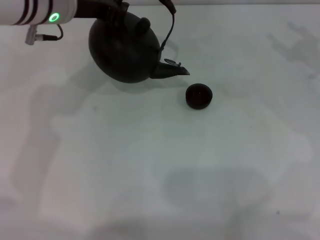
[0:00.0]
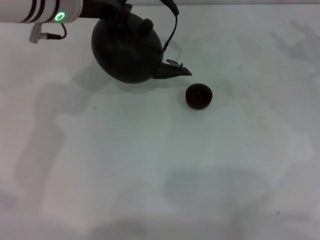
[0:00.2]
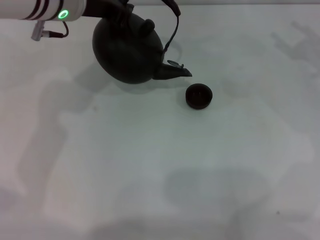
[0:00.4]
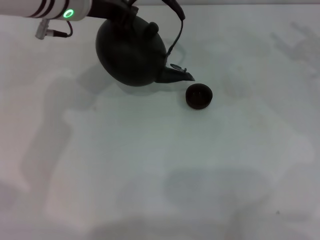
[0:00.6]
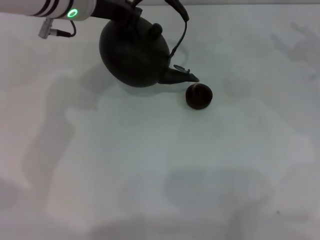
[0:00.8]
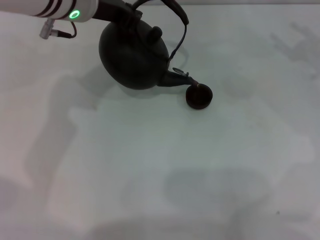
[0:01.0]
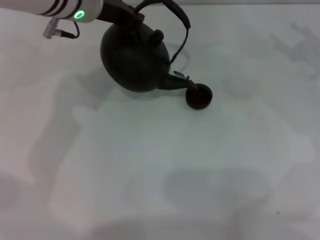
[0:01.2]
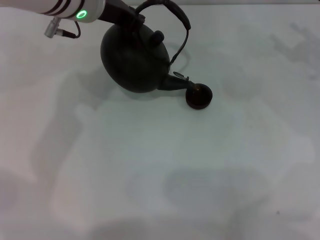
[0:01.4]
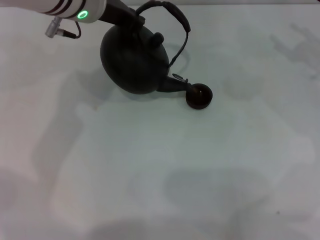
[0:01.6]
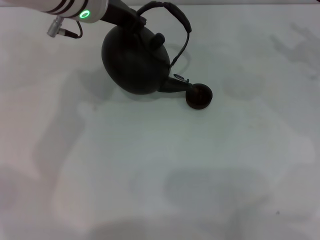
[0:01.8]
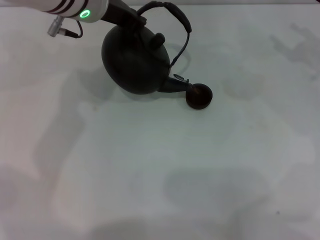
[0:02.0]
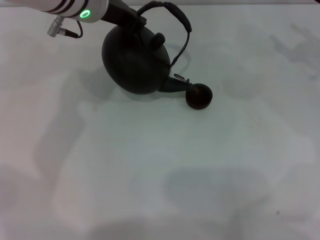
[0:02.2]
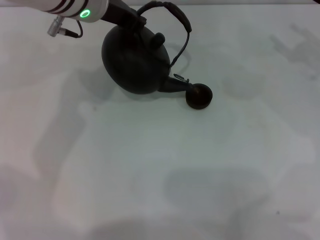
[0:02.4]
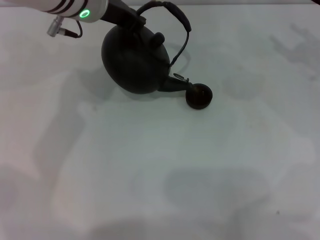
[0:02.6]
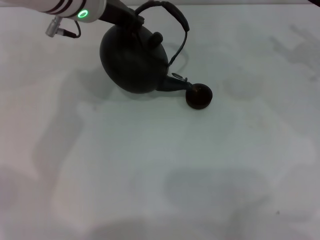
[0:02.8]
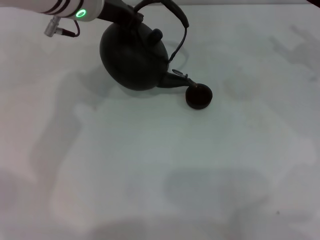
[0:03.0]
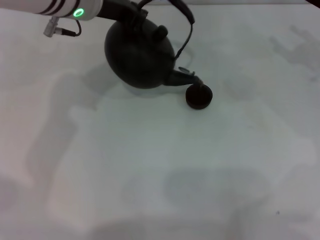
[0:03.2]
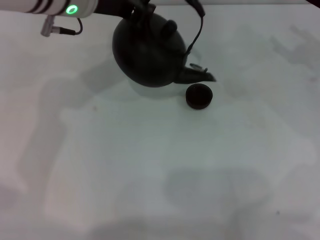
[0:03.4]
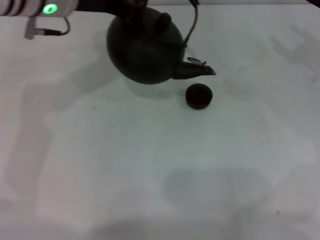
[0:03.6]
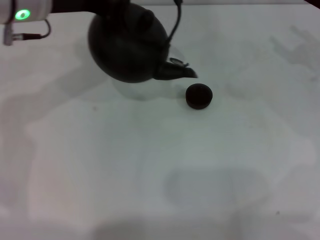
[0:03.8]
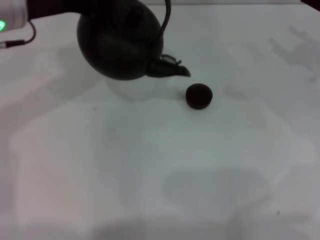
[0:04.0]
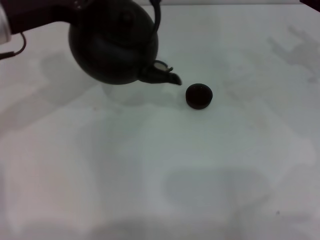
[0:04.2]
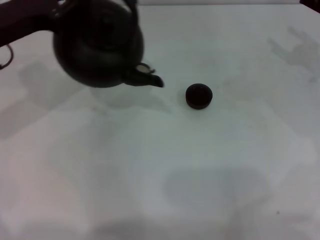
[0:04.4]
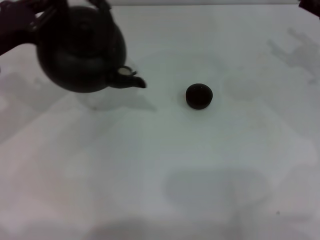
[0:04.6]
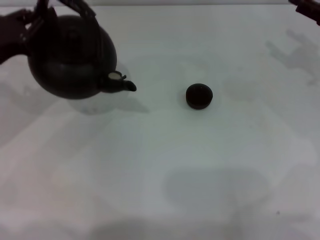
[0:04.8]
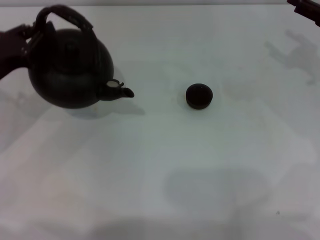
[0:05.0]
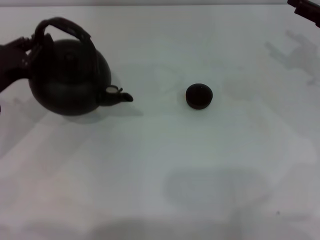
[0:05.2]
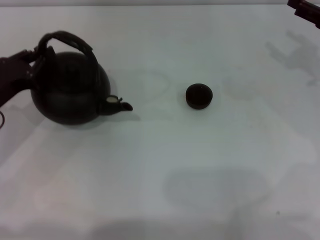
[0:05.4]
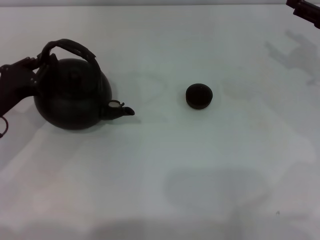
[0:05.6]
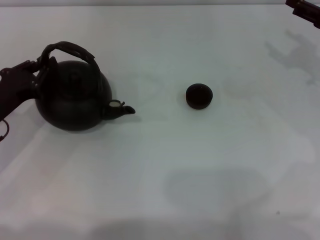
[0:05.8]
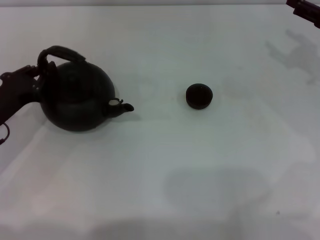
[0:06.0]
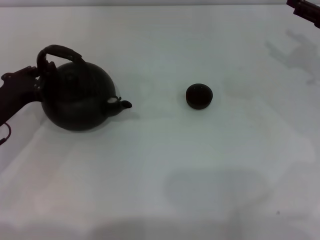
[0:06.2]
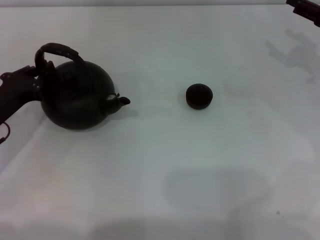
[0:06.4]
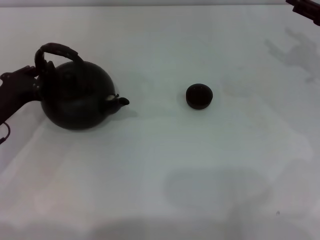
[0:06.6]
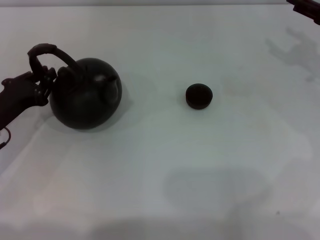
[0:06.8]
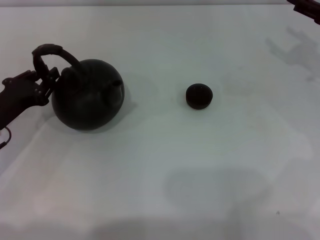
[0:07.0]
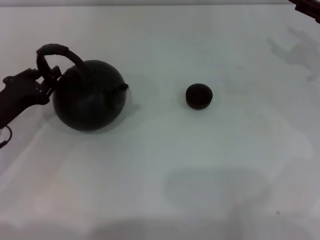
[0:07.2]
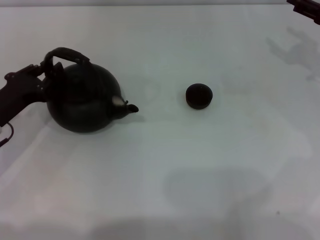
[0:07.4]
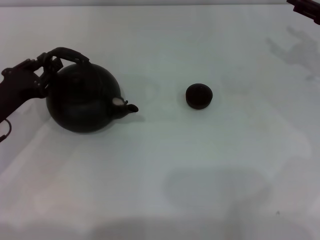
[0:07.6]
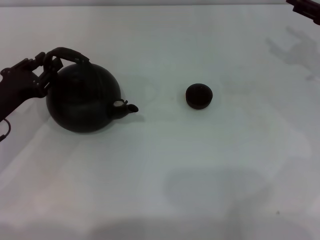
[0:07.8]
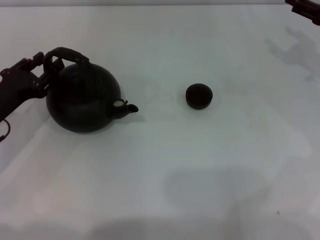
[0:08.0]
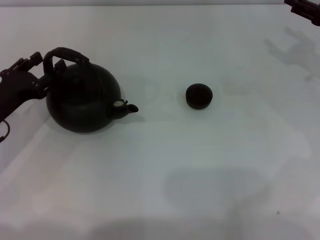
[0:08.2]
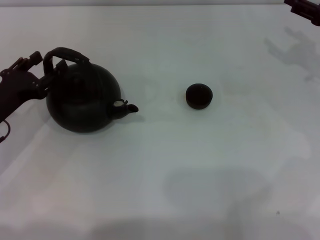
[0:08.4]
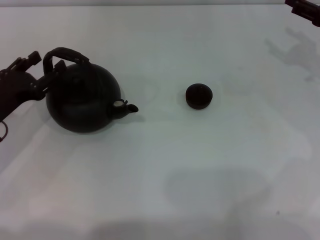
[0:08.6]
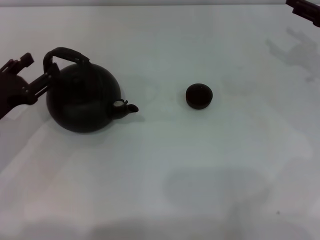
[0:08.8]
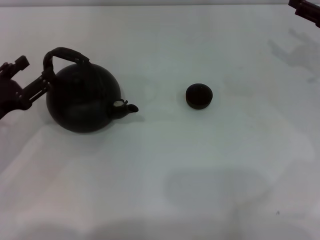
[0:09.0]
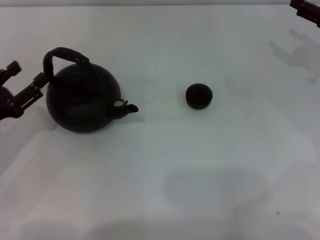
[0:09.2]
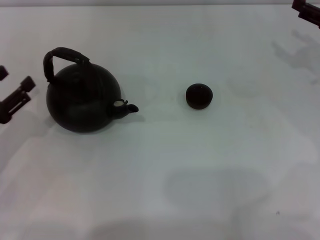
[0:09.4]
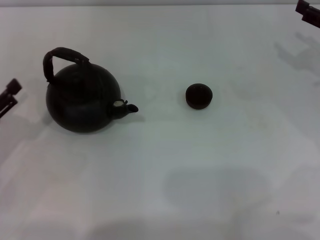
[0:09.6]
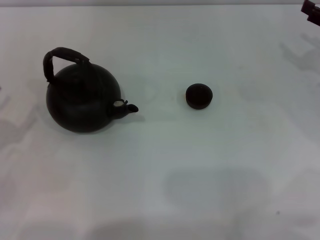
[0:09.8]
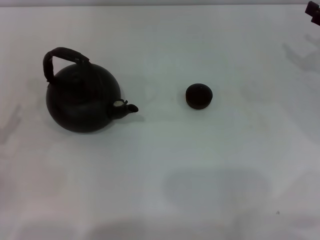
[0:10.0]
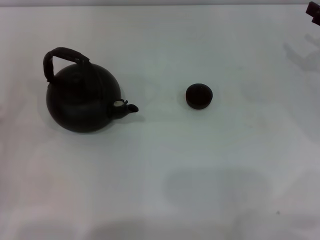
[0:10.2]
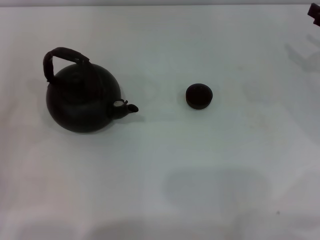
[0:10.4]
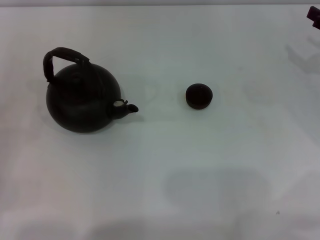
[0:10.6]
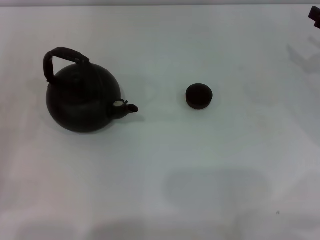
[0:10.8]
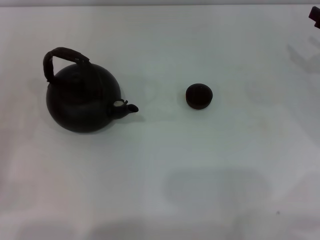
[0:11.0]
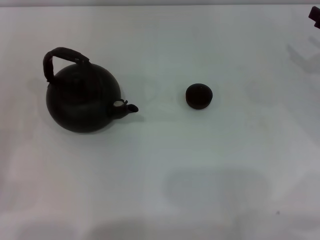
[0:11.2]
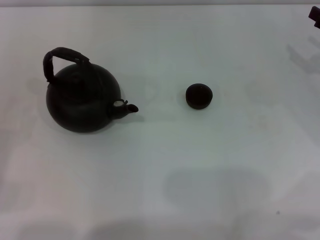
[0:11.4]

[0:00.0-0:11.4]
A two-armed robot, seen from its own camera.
Task of the whole recording: Grasp the handle of the teapot with one hand and pour tea into the teacup.
Step, 0:00.0 to 0:04.4: Pour tea into the teacup with the left gripper.
Step, 0:04.8 to 0:09.2: Put down the teapot with the left gripper.
0:00.0 to 0:01.4: The grippers move only a little.
0:01.4 to 0:02.8: Both grippers stay about where they are.
0:02.8 to 0:04.2: The left gripper moves to the left and backward, some 15 cm.
0:04.2 to 0:05.6: The left gripper heads downward, to the left and backward, covering about 15 cm.
0:05.6 to 0:07.2: There are only small adjustments of the grippers.
0:07.2 to 0:08.6: The left gripper opens up.
0:08.6 to 0:10.0: The left gripper goes approximately 10 cm backward and to the left.

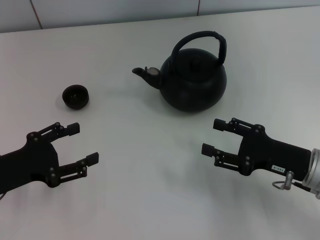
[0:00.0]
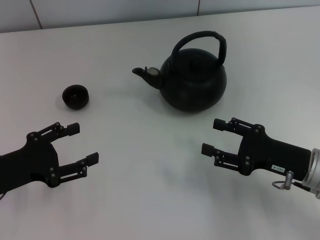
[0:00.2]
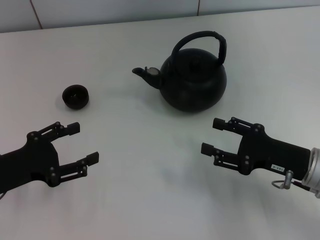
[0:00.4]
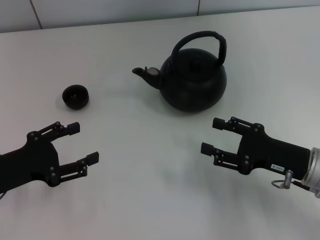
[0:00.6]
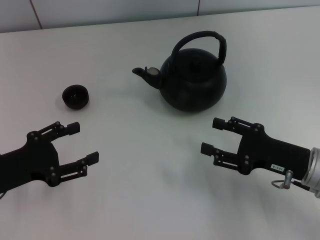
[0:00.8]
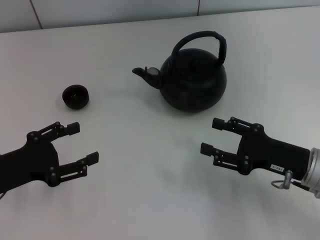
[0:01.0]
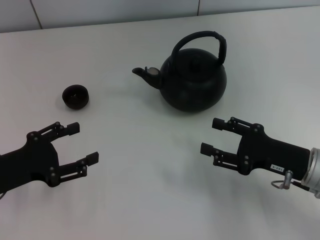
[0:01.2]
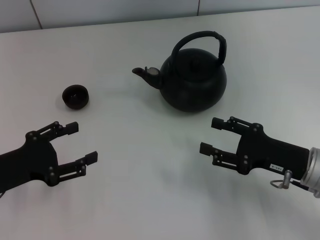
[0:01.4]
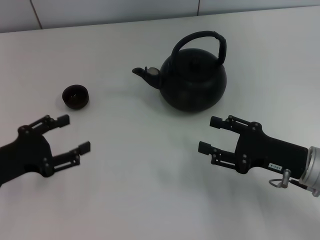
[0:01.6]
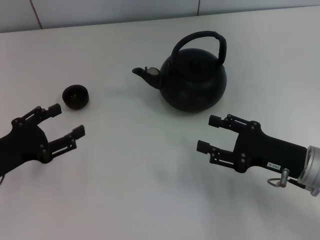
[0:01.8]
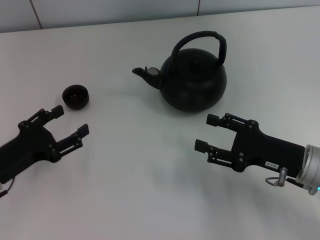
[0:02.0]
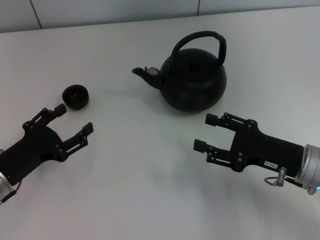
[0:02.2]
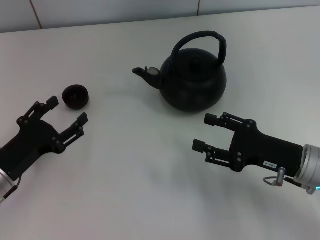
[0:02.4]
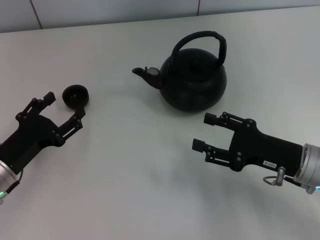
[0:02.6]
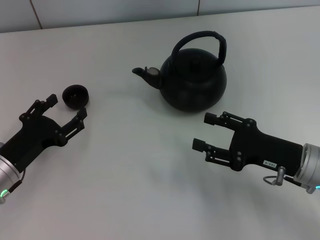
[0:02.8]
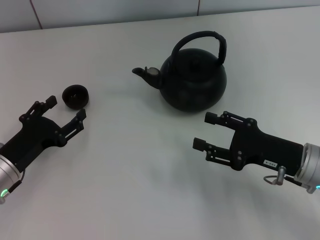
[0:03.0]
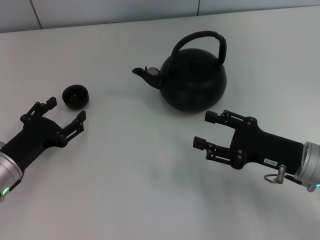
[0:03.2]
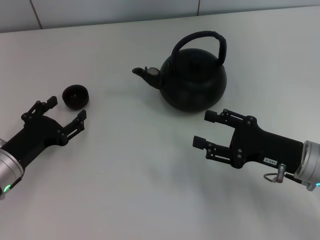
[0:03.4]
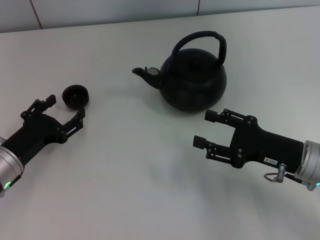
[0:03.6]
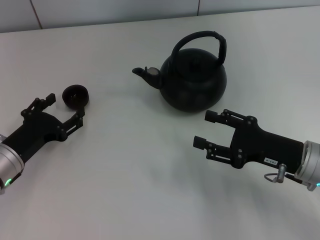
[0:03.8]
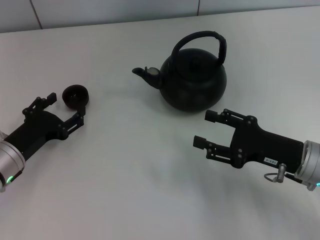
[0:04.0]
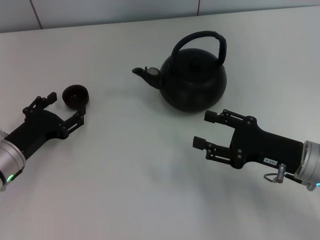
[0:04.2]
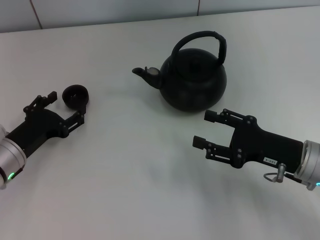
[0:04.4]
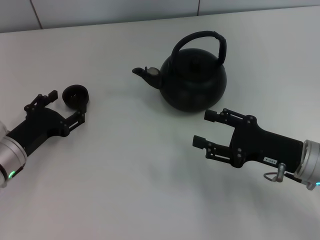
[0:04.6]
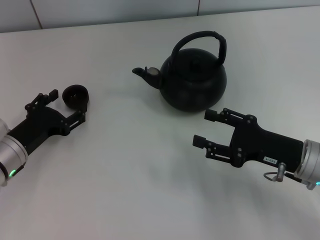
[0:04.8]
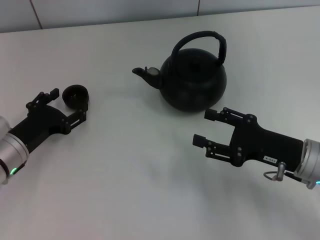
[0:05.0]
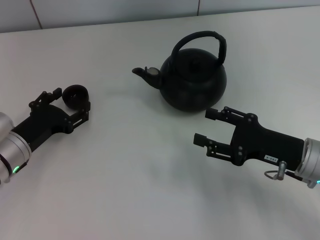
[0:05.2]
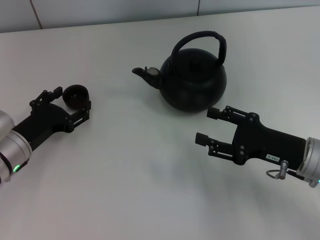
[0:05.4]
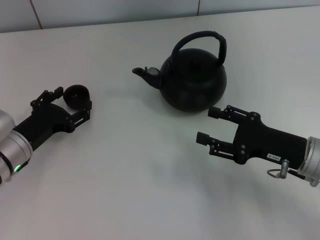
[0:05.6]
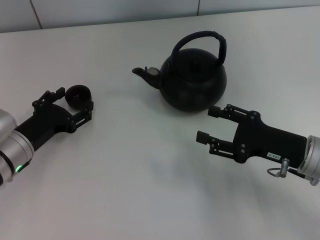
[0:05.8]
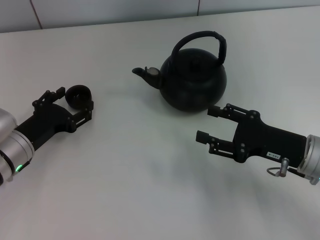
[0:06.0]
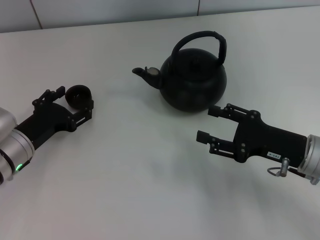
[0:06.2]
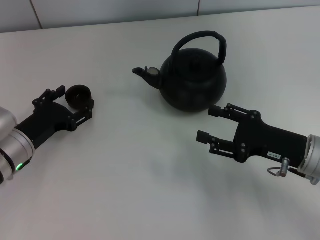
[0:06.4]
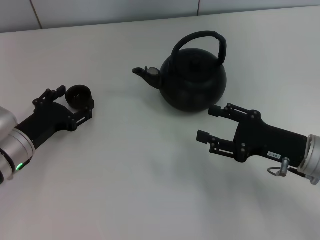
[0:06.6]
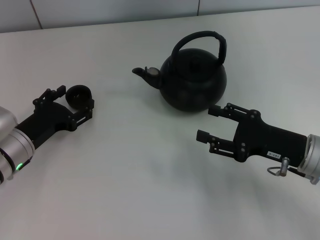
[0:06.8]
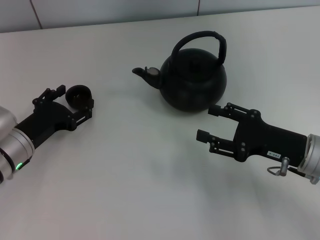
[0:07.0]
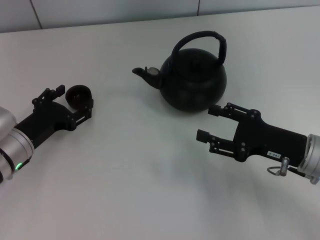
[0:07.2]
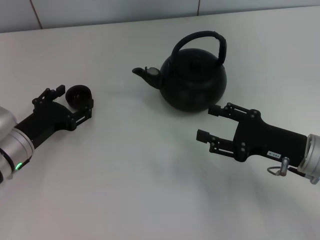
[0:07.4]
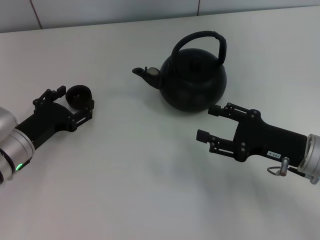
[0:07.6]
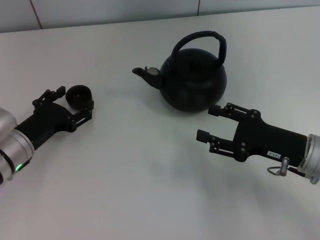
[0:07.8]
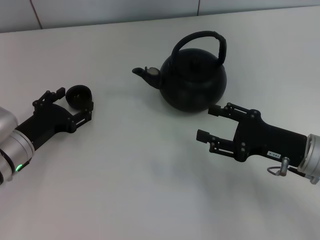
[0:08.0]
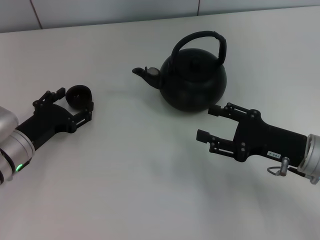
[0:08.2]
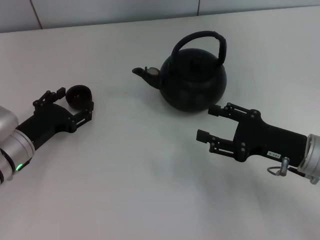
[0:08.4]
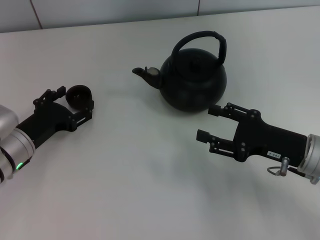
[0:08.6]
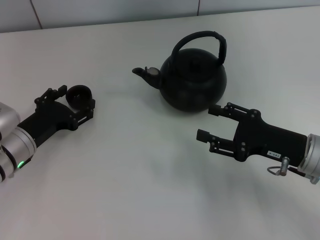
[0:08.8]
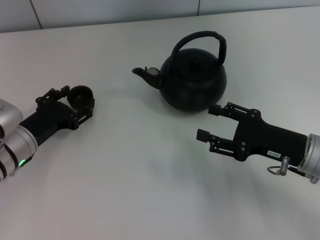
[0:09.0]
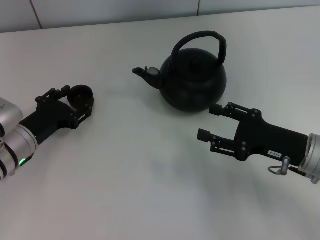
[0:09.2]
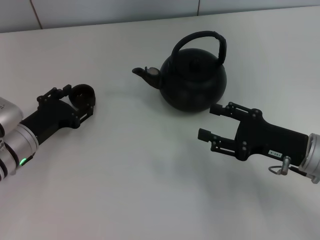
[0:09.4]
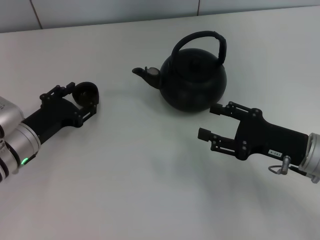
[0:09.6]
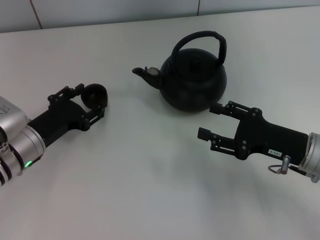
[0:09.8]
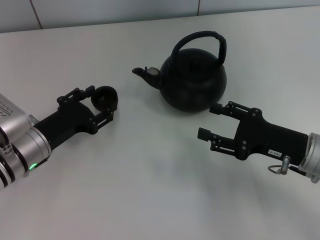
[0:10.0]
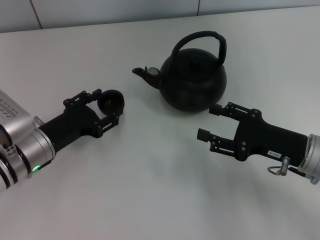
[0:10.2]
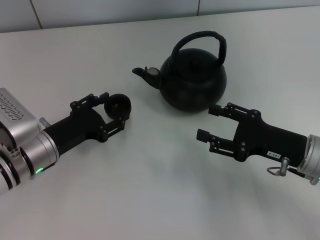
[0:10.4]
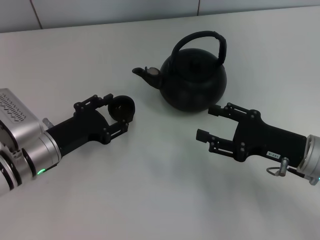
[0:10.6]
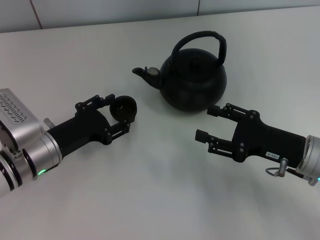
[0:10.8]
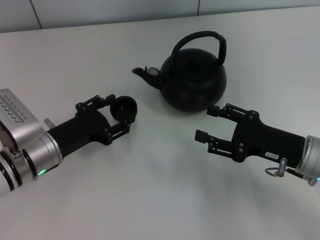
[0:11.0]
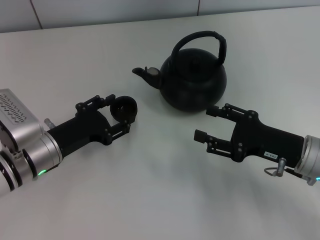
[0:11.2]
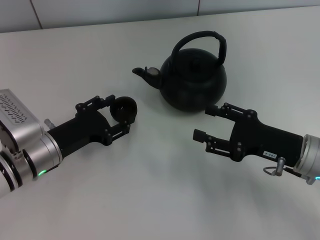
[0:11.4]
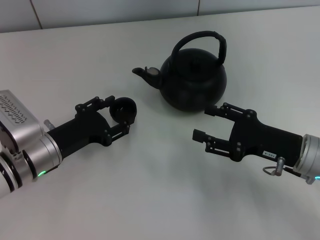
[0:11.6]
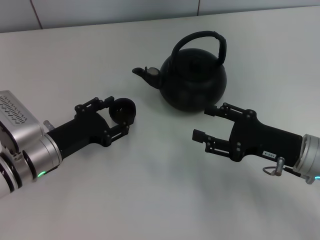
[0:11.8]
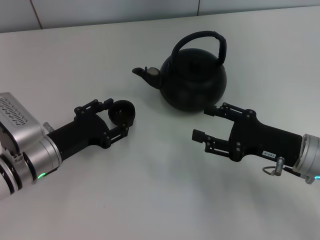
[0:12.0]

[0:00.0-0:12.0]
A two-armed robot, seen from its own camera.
Task of the whole recording: Grasp the handle of the teapot with one hand and pour tea into the teacup.
Step, 0:00.0 to 0:10.2: Pick up the teacup with the left gripper.
0:00.0 to 0:01.6: Both grippers stay put.
0:01.6 to 0:03.0: The left gripper travels downward by some 5 cm.
0:03.0 to 0:06.0: There are only small adjustments of the grippers.
0:06.0 to 0:09.0: Both grippers stay put.
0:09.0 to 0:10.4: The left gripper closes up.
0:10.4 to 0:12.0: The two grippers keep their place.
